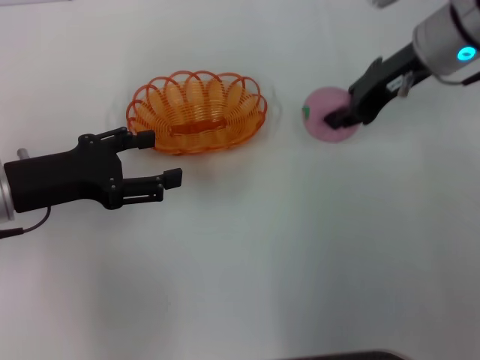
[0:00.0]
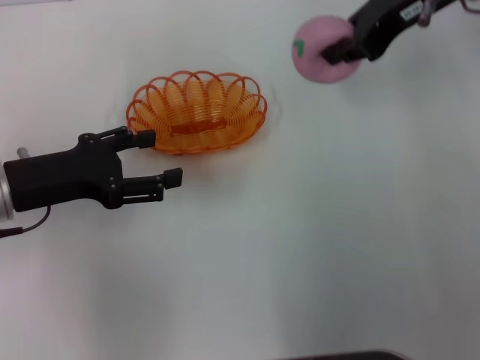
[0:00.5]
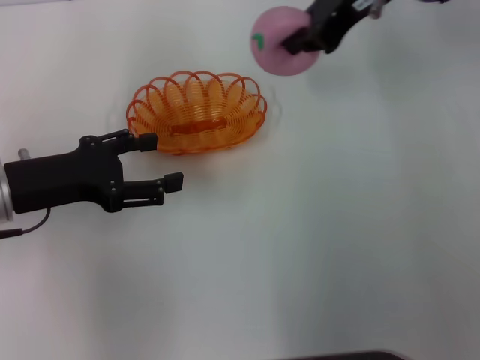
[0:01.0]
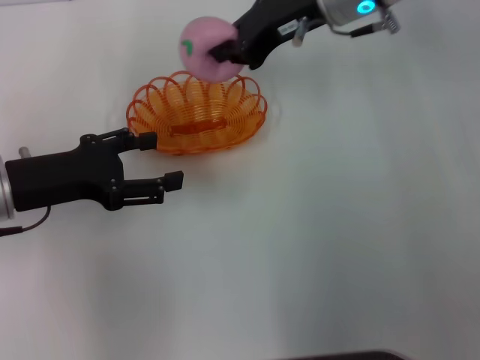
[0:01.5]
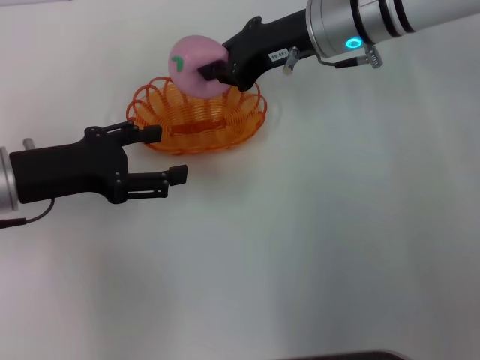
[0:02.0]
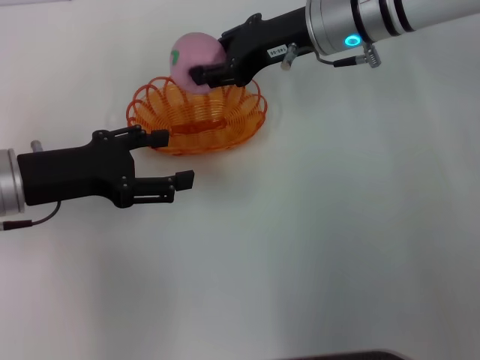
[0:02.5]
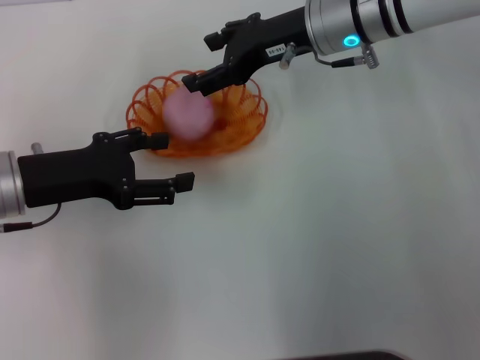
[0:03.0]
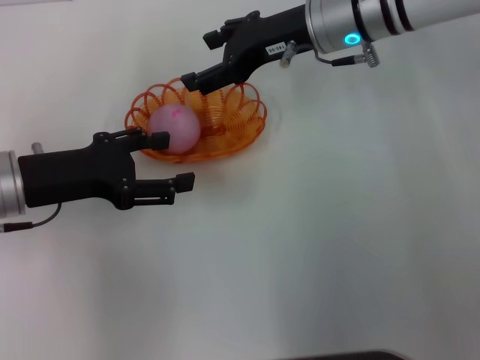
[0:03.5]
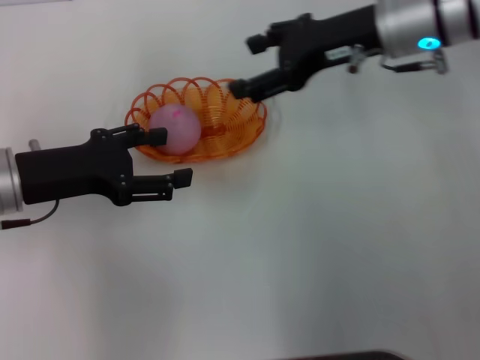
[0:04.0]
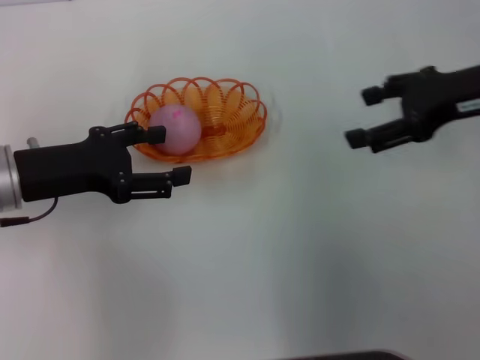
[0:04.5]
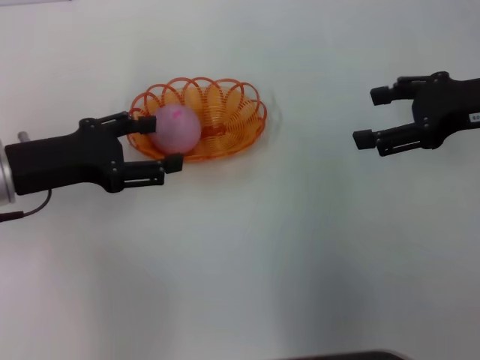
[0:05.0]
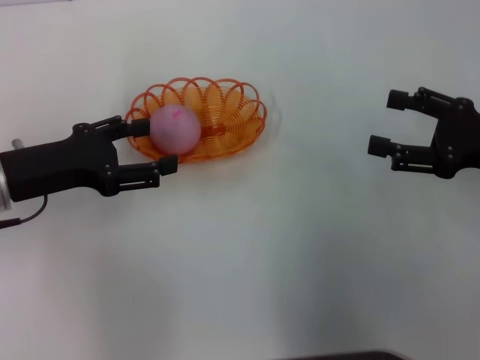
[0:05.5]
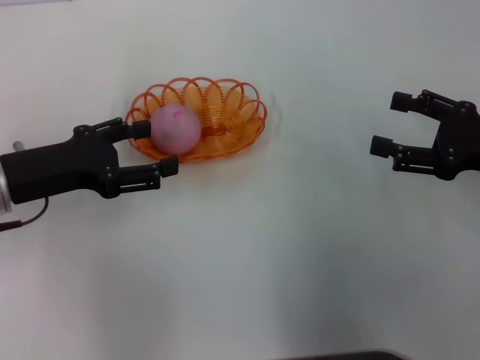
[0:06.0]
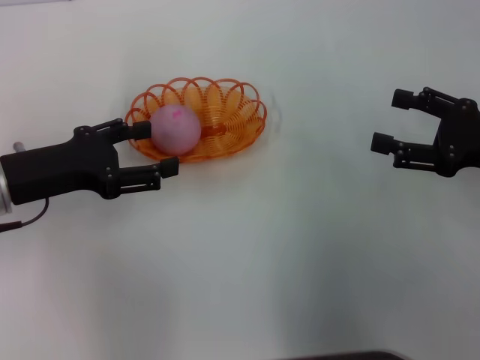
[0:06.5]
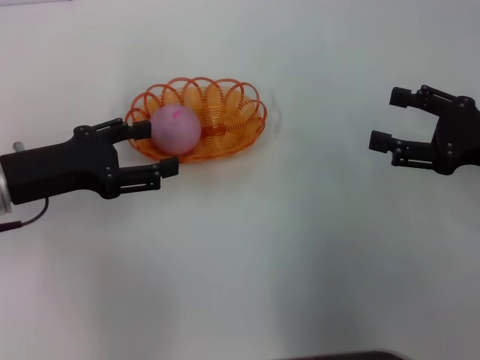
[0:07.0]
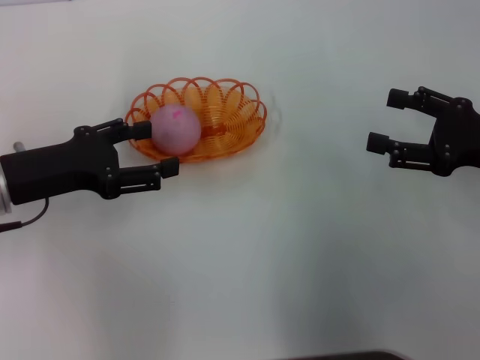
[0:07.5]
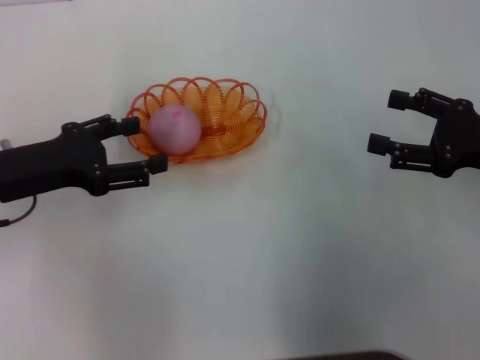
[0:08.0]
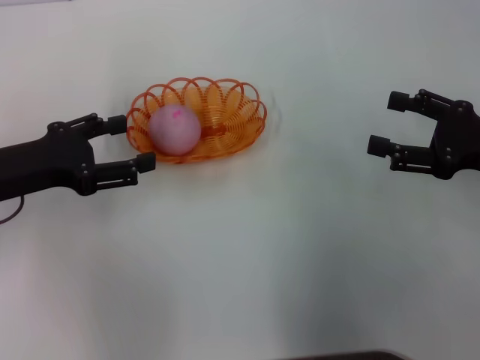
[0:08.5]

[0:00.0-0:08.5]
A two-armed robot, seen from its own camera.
Step, 0:00.5 to 0:04.0: Place the peach into the basket with the right gripper.
0:00.0 to 0:02.0: The right gripper is displaced to the left by some 10 cm, and travels upward and back again, approximately 10 cm each way.
0:02.0 to 0:04.0: The right gripper shifts roughly 5 cm to the right, and opens up.
0:04.0 to 0:06.5: The right gripper shifts roughly 20 cm to the right, backward and downward.
0:06.5 to 0:08.5: The grippers make only small movements.

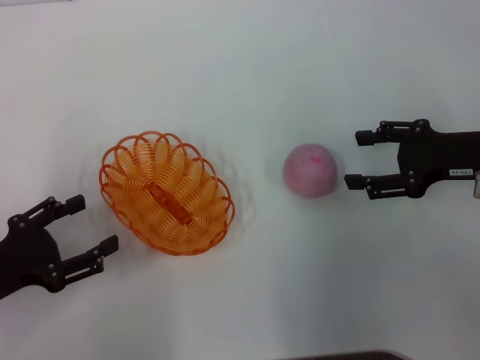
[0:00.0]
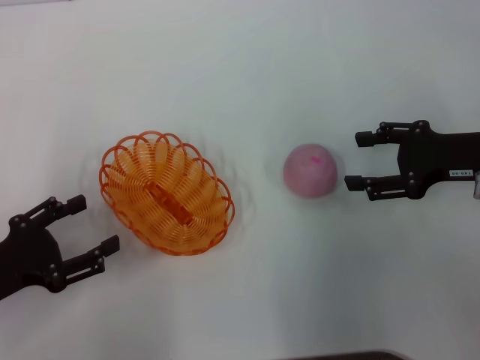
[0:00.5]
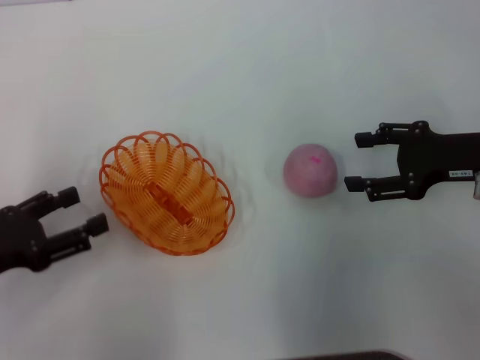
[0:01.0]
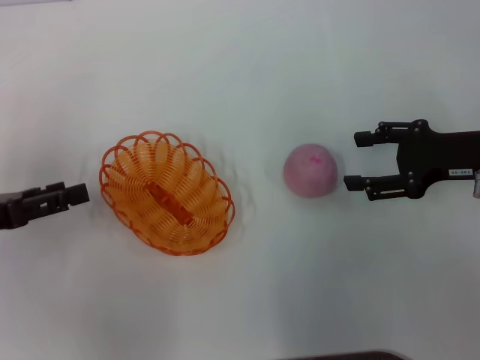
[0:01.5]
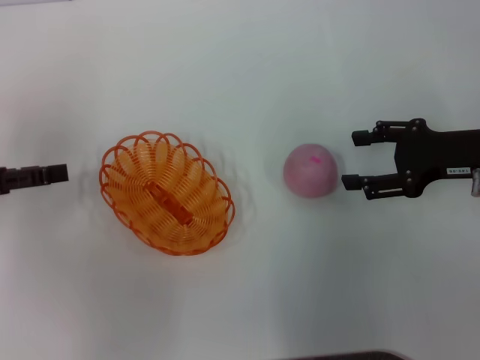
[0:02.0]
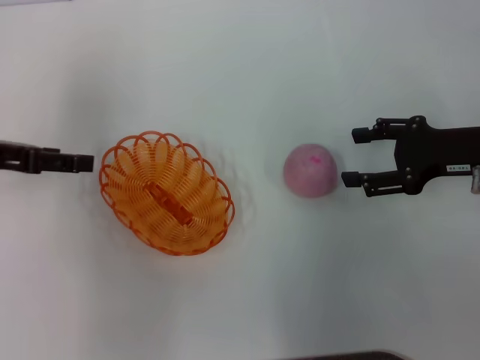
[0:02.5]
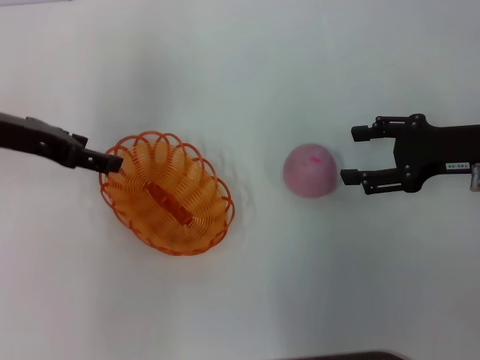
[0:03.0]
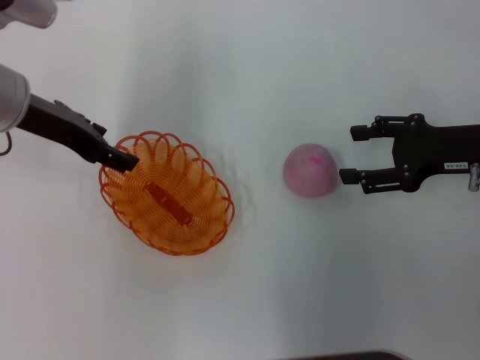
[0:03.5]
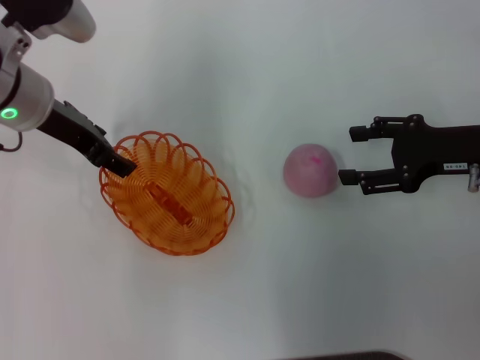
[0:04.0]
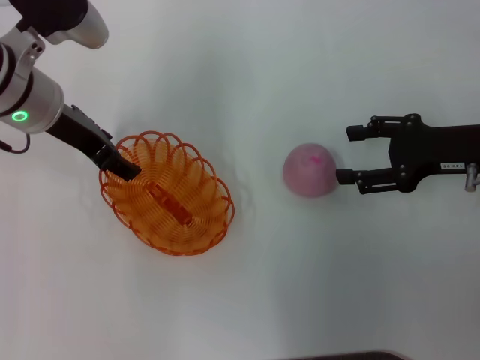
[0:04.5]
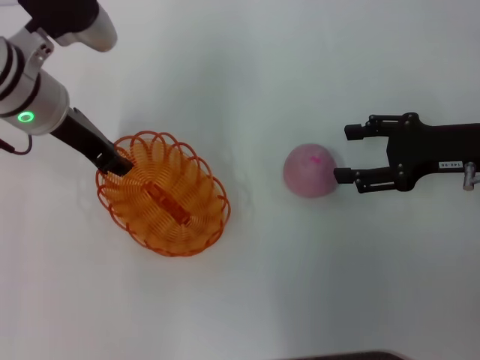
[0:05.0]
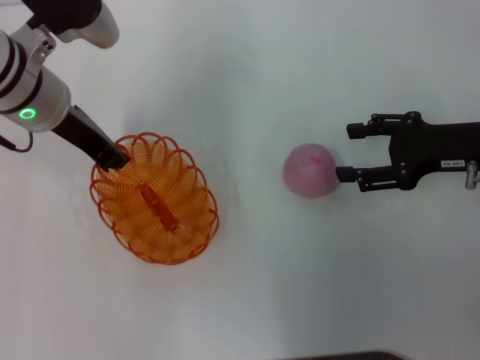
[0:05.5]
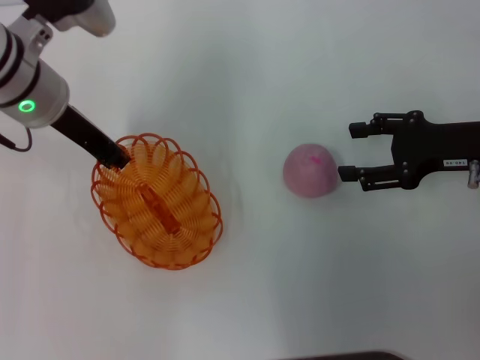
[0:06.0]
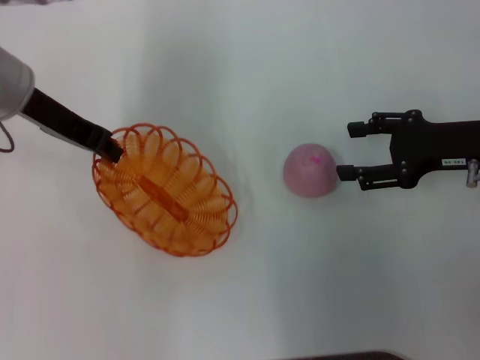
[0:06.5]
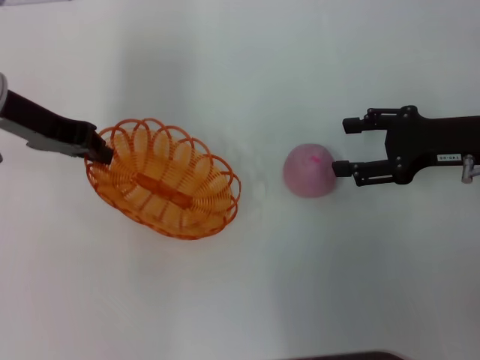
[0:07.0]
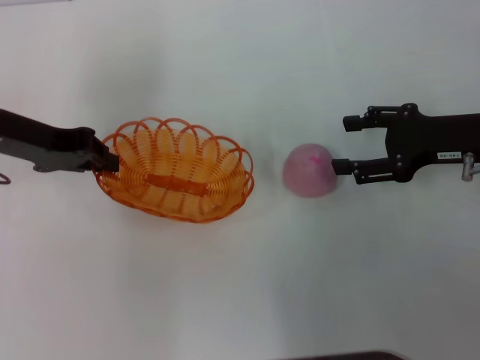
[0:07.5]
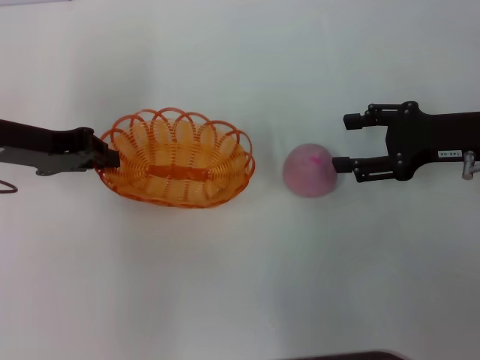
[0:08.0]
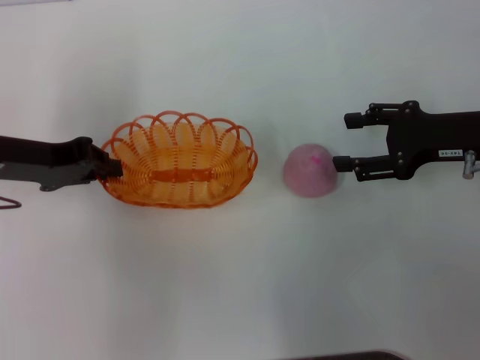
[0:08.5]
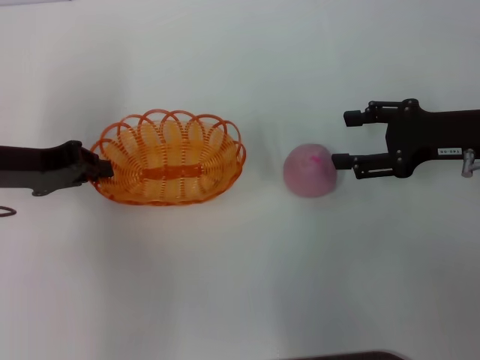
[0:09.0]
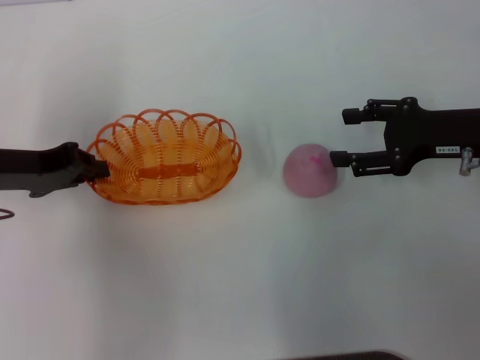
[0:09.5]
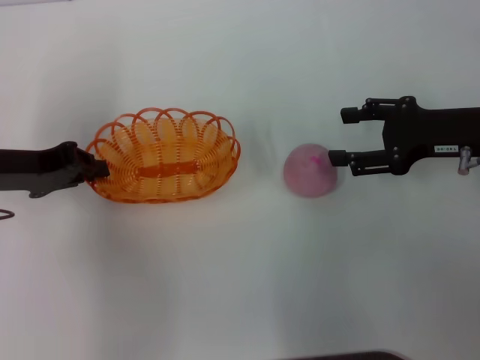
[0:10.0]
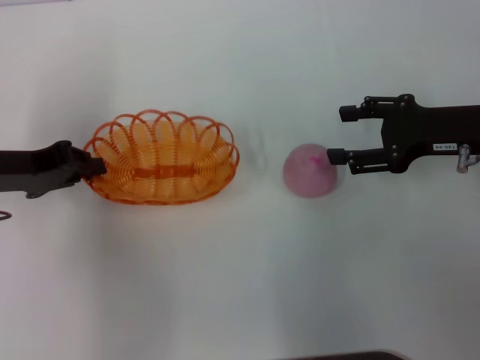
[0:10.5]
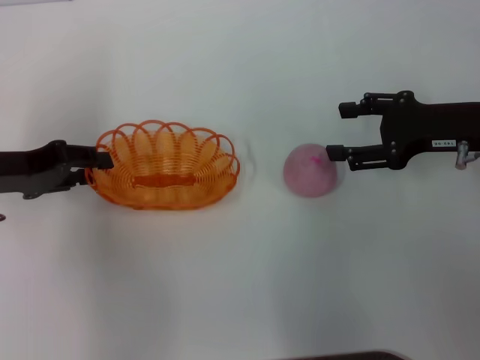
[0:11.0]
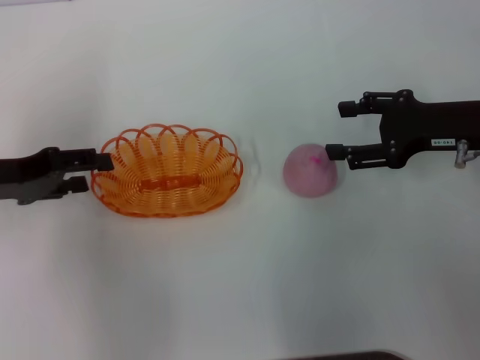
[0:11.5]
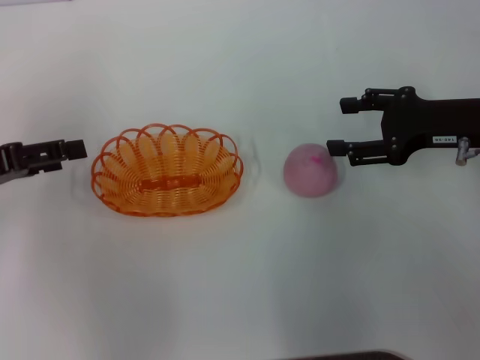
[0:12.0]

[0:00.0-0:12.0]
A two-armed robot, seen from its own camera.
Step, 0:00.0 to 0:07.0: Pick up the basket with the left gripper.
0:00.0 to 0:02.0: The left gripper travels forward and upward by some 10 cm.
0:02.0 to 0:04.0: The left gripper is displaced to the right and forward by approximately 20 cm.
0:04.0 to 0:06.0: The left gripper closes.
0:06.0 to 0:08.0: The left gripper moves to the left, about 10 cm.
0:08.0 to 0:10.0: There are only small adjustments of the grippers.
0:10.0 to 0:12.0: The left gripper shifts by approximately 5 cm, and opens up.

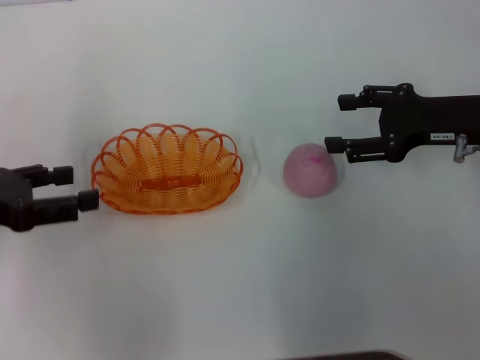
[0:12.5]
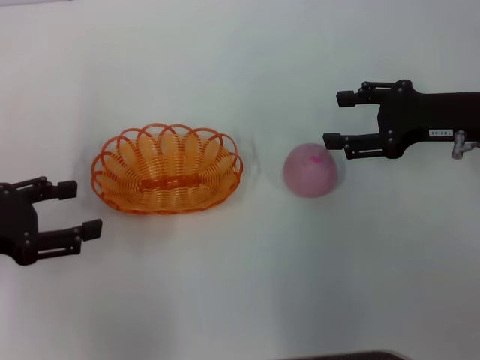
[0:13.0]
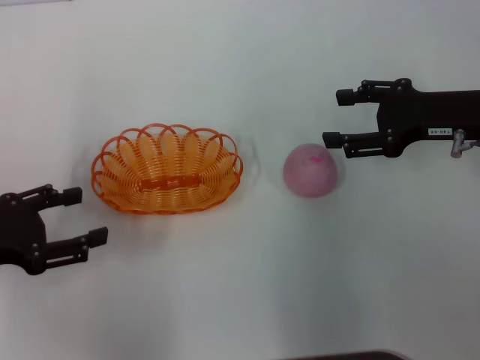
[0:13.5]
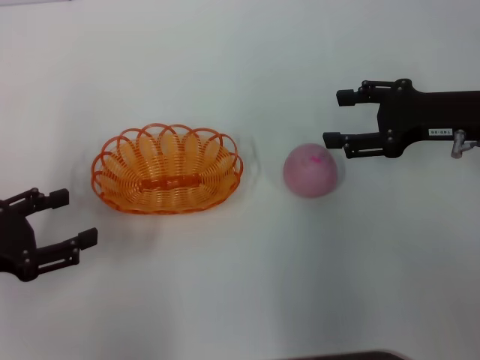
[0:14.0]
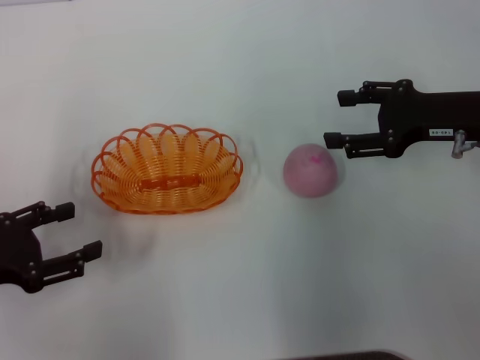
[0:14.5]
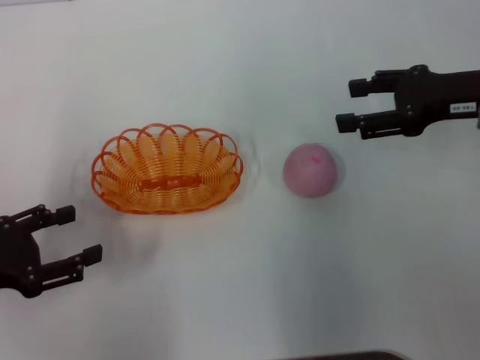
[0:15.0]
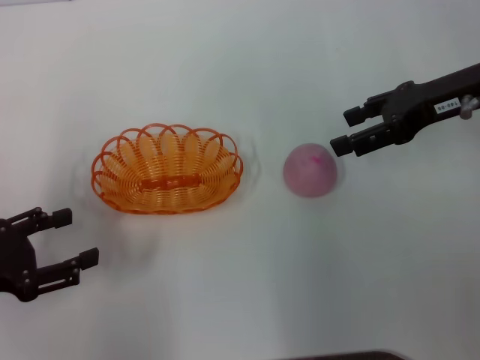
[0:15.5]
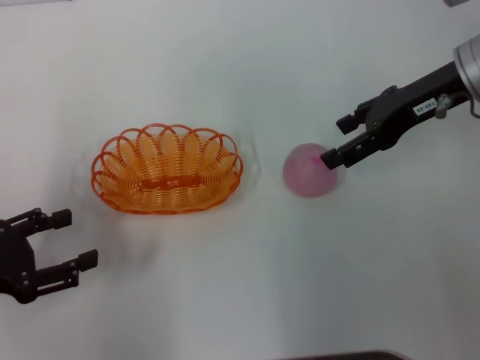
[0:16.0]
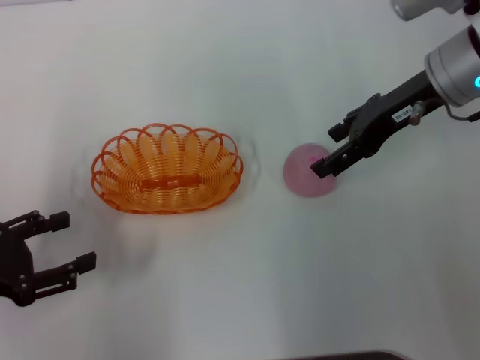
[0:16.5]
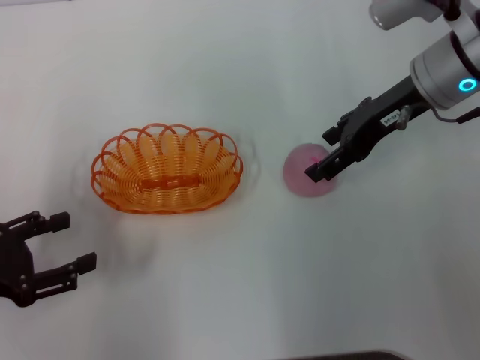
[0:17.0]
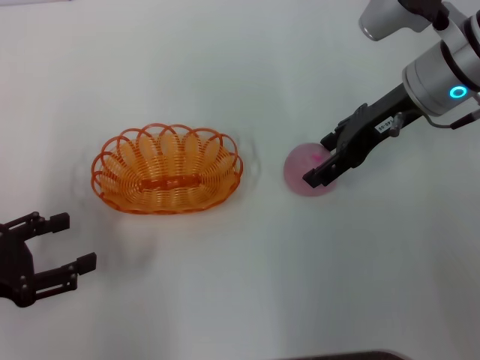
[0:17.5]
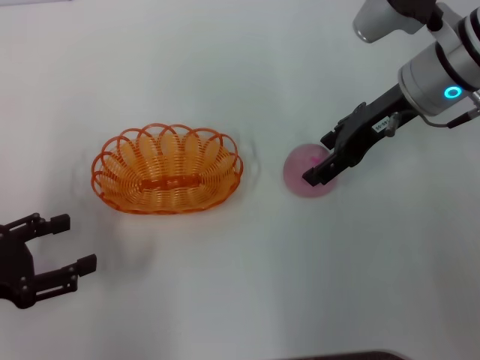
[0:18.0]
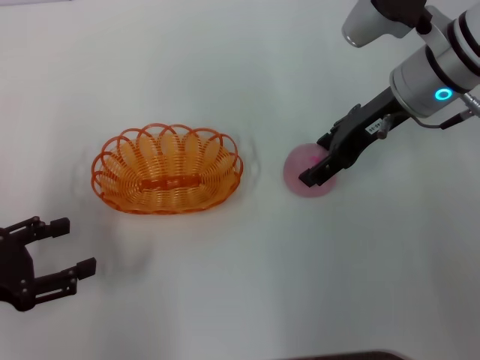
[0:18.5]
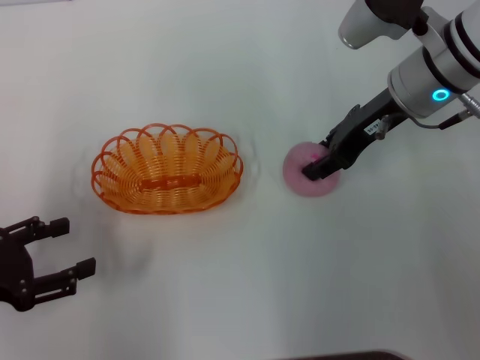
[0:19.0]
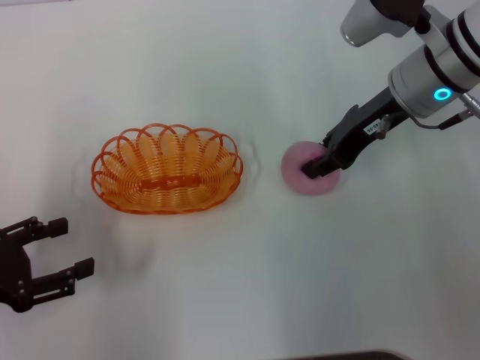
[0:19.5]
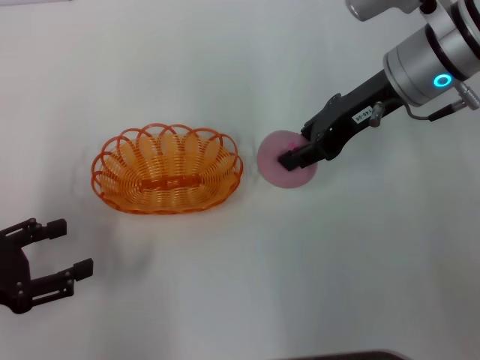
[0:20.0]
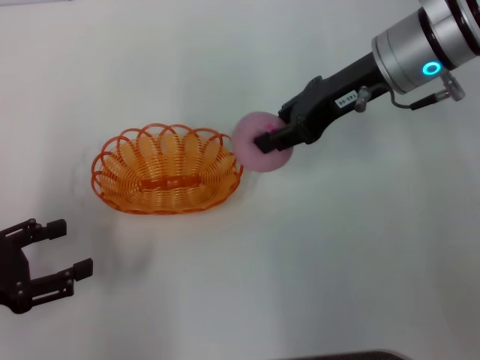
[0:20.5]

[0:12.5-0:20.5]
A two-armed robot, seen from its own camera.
0:12.5 to 0:14.5: The left gripper goes about 5 cm downward.
0:14.5 to 0:16.5: The right gripper heads to the left, upward and forward, covering about 10 cm.
0:16.5 to 0:18.5: There are only small adjustments of the grippers.
0:18.5 to 0:20.5: The right gripper closes.
